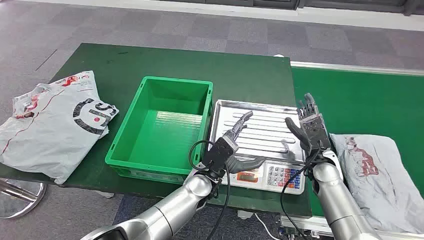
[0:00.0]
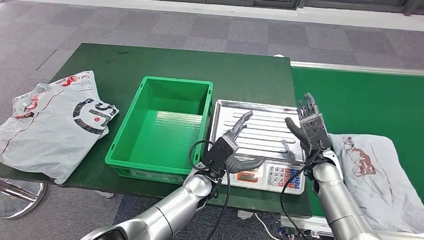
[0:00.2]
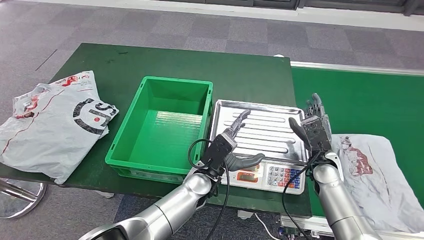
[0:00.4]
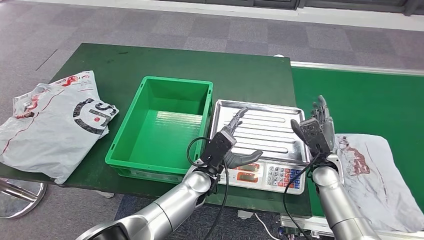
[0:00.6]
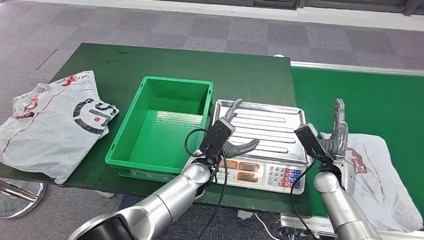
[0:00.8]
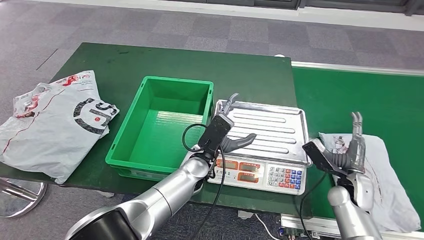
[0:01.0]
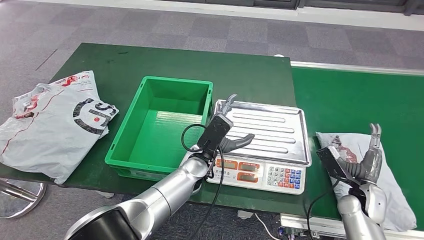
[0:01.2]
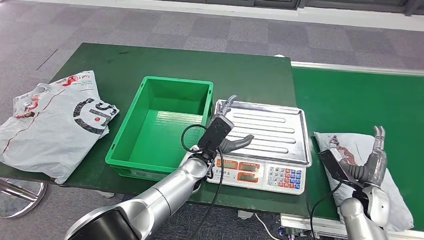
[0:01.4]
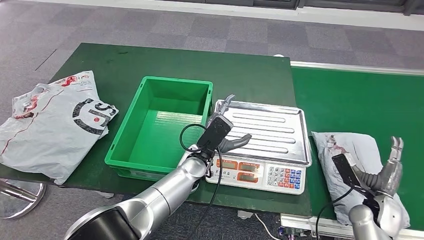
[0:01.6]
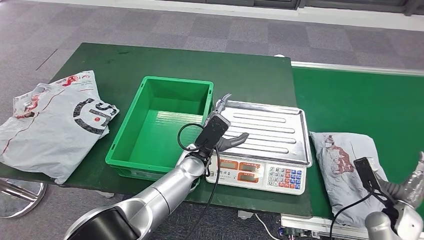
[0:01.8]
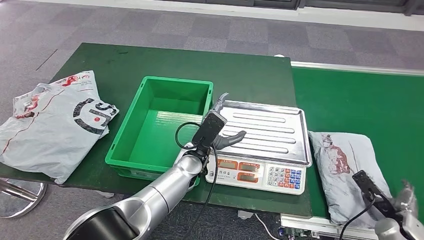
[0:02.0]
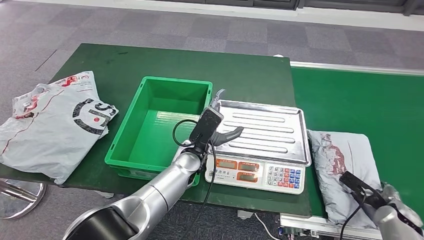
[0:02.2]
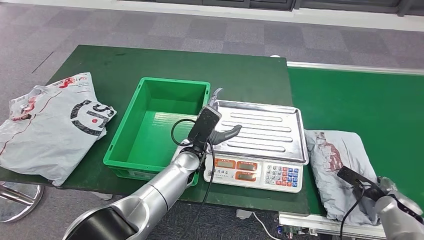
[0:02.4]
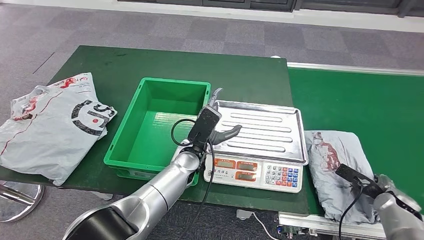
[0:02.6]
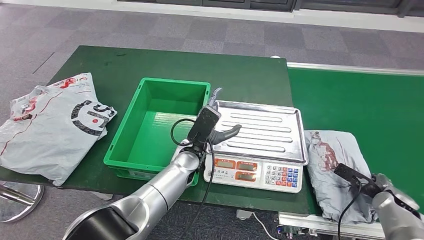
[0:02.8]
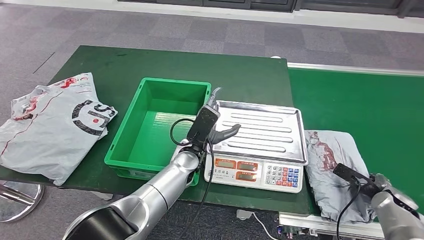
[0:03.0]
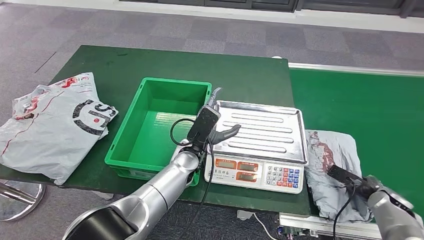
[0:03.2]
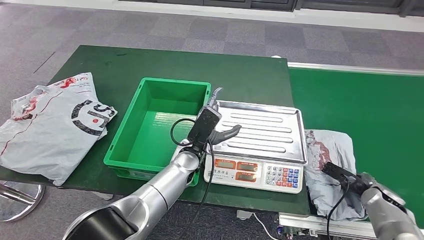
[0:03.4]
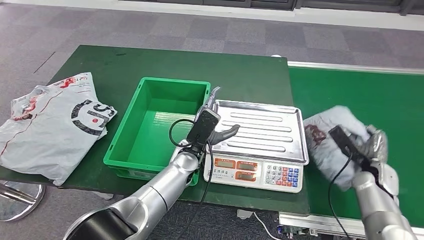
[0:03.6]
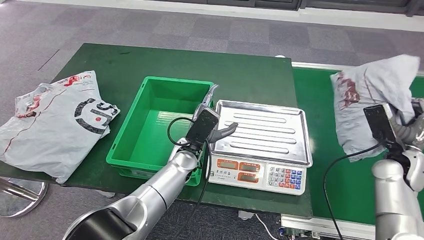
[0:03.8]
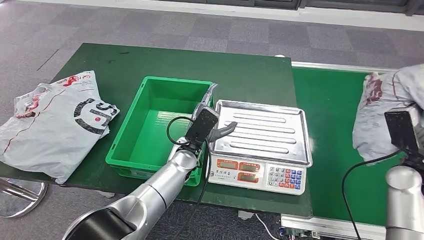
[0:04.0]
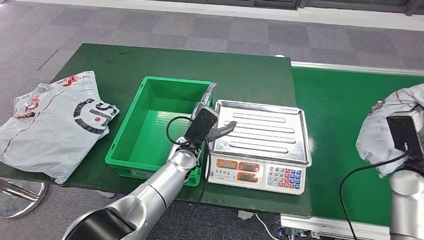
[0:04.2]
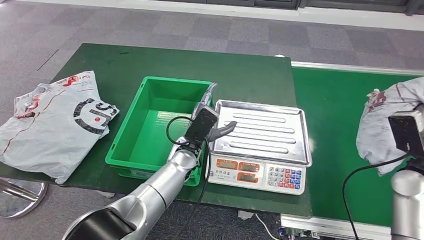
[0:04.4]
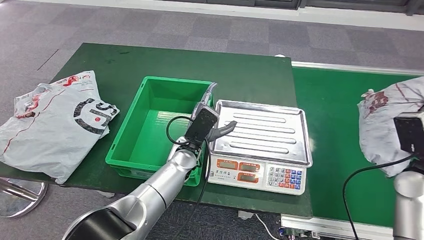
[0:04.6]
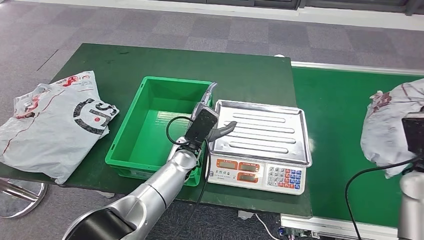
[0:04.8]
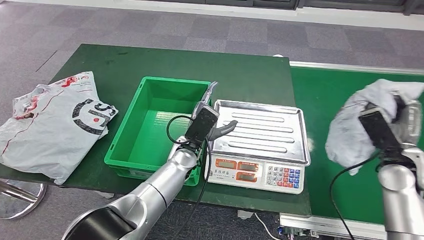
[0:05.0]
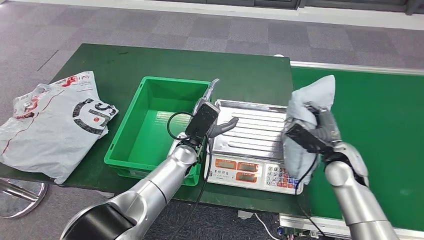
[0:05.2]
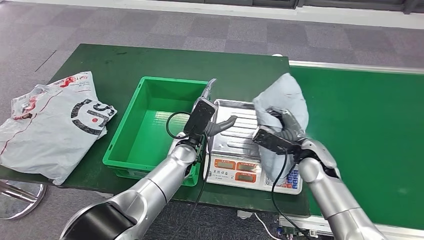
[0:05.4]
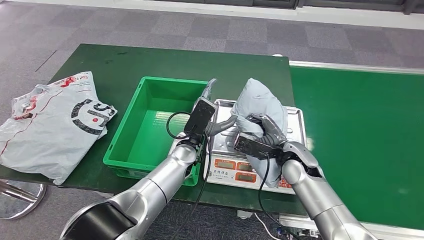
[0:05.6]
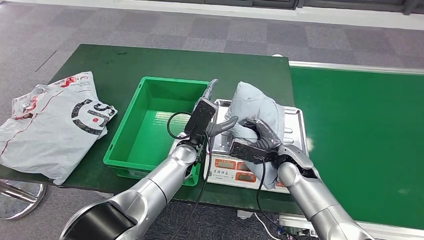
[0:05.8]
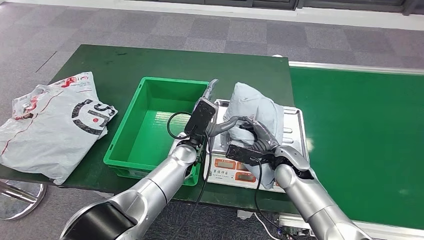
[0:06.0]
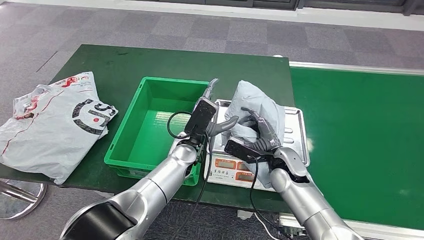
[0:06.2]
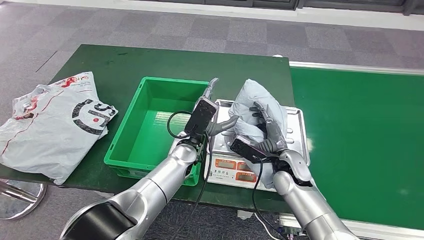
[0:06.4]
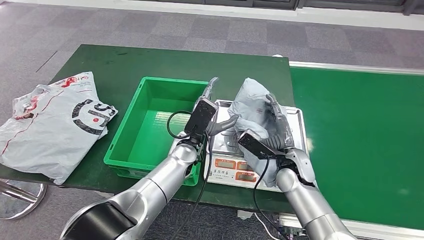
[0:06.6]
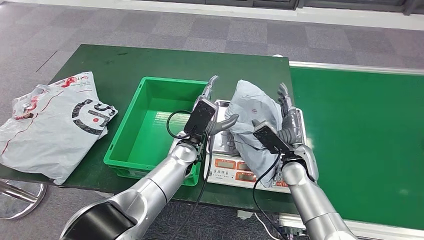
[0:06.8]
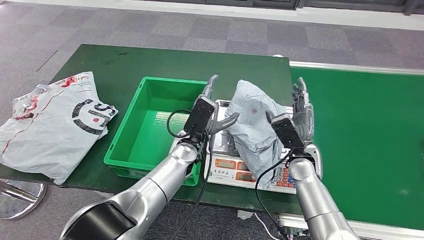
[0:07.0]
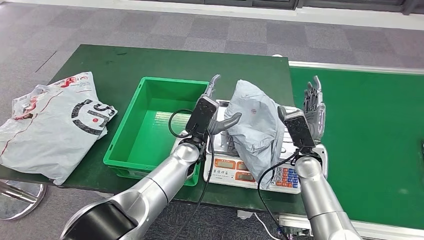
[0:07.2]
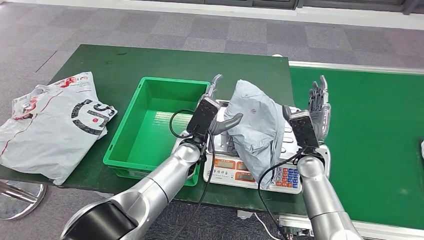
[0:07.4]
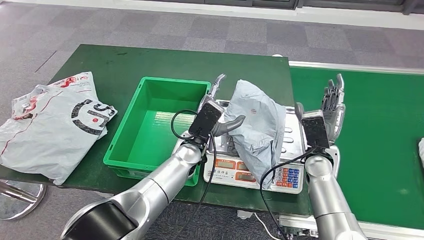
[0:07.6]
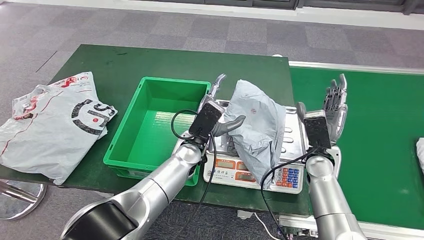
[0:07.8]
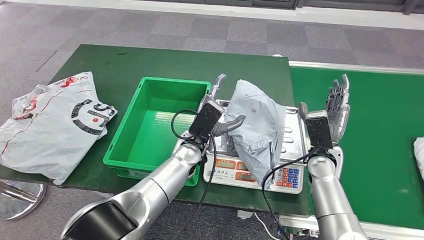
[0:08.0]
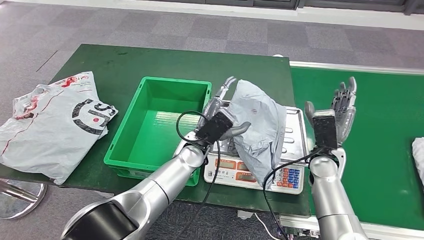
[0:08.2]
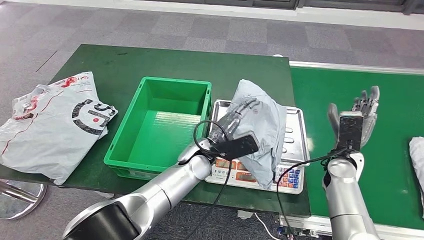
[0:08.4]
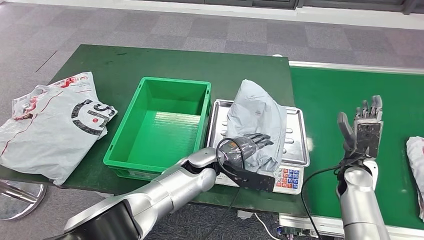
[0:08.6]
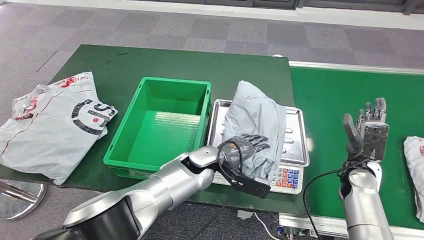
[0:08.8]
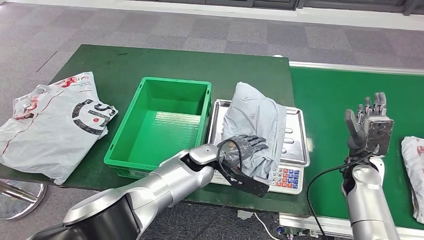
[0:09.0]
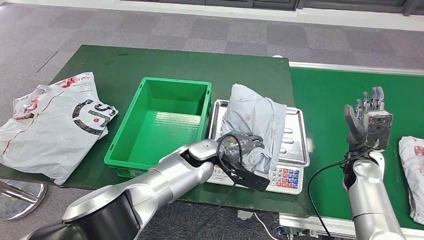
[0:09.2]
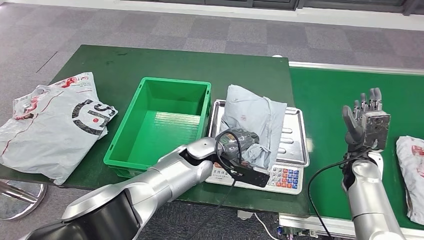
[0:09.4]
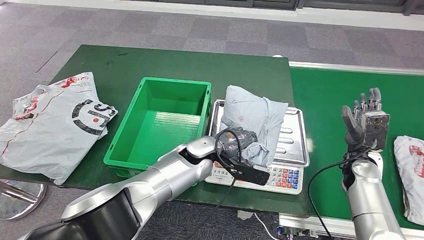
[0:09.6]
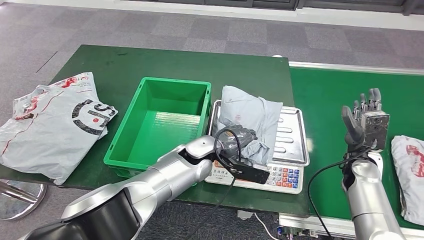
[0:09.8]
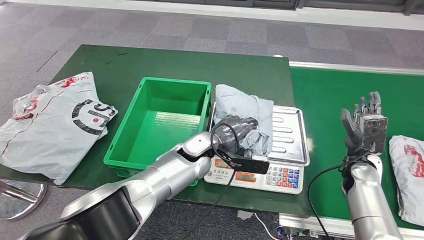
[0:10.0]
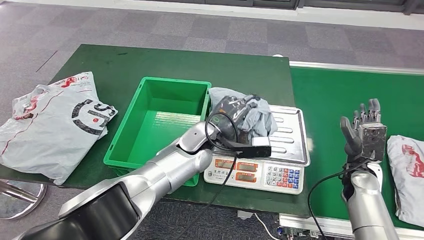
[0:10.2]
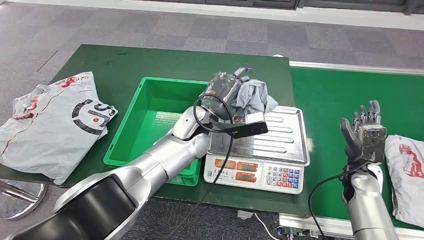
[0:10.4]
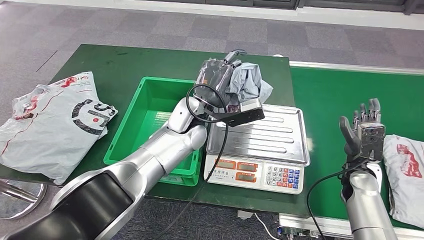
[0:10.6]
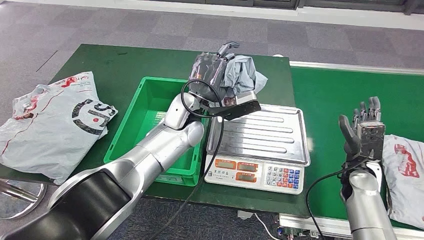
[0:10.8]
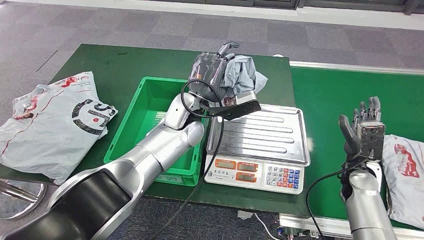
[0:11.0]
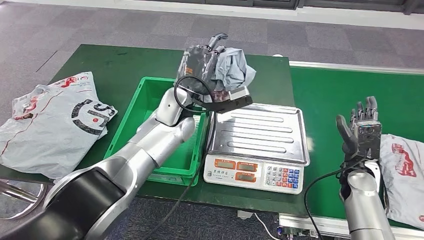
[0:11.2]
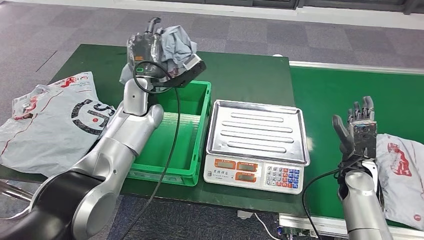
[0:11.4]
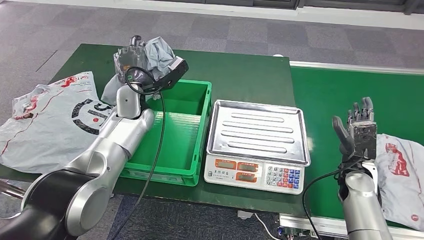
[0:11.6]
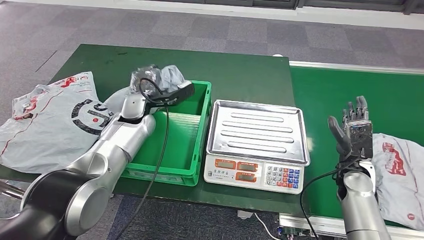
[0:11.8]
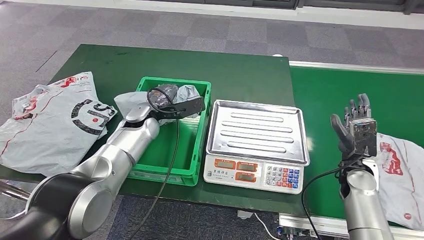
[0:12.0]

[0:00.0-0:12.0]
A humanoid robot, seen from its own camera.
Step, 0:00.0 to 0:04.2: Take the parcel off the conveyor belt.
Step, 0:04.6 to 0:07.6: Place the parcel onto the inbound machine.
Step, 0:08.0 to 0:11.2: Pick up the parcel from the inbound machine.
0:06.0 to 0:07.6: The right hand shifts some 5 cm to the right.

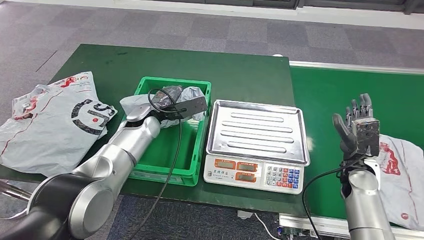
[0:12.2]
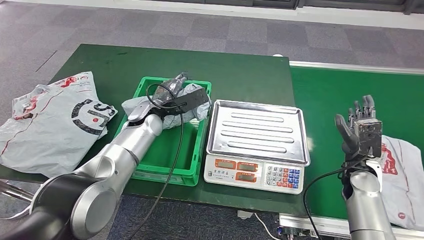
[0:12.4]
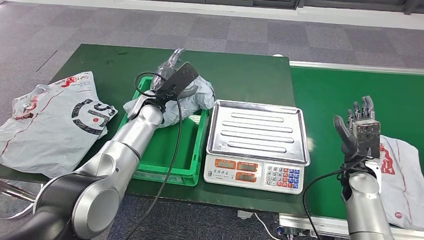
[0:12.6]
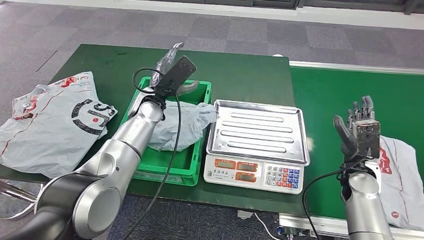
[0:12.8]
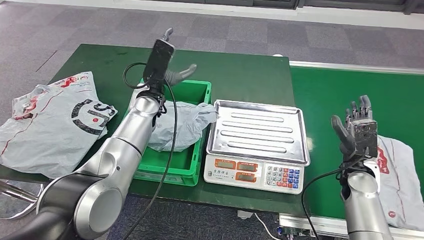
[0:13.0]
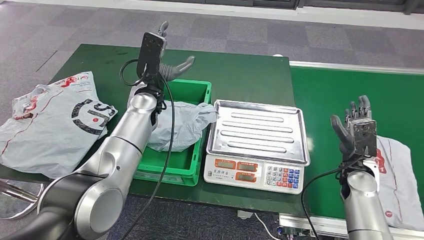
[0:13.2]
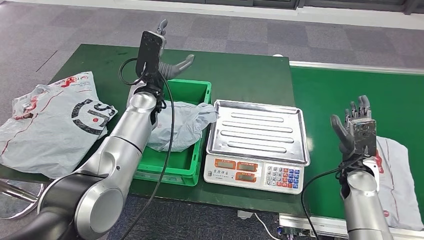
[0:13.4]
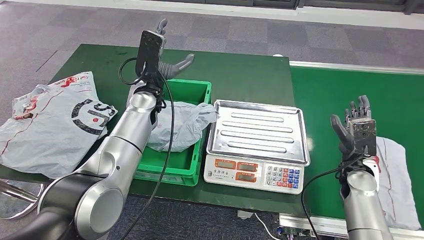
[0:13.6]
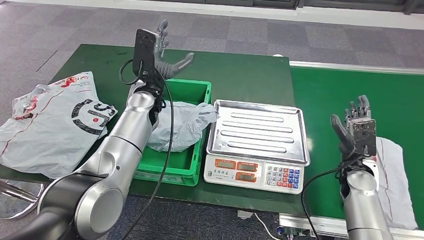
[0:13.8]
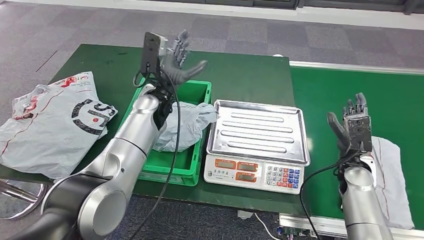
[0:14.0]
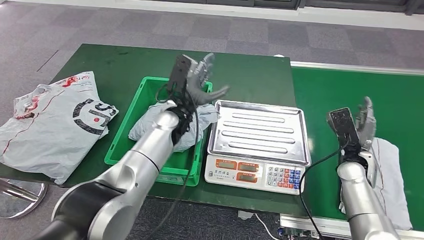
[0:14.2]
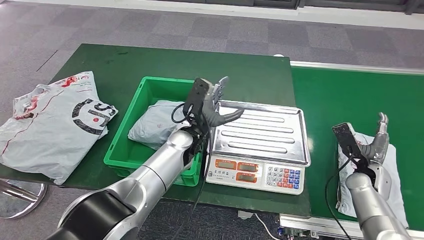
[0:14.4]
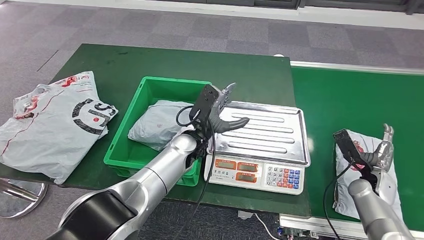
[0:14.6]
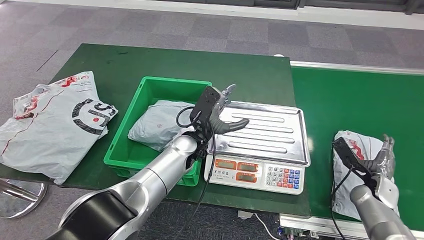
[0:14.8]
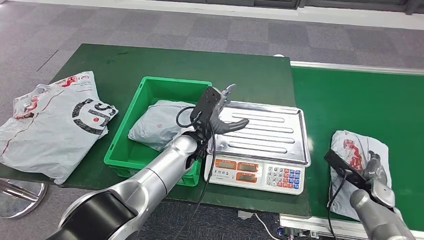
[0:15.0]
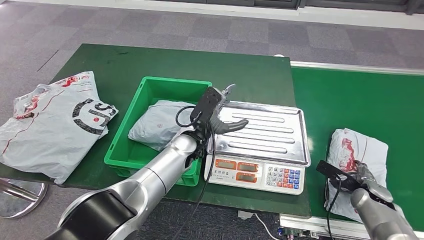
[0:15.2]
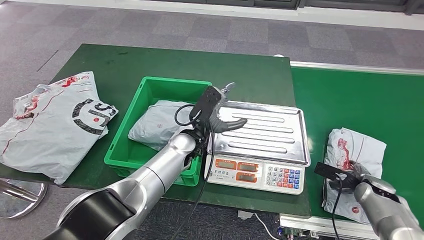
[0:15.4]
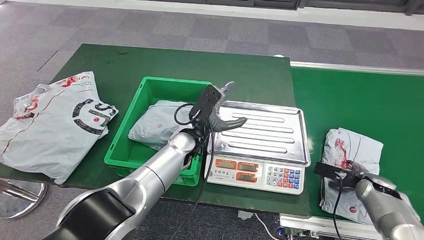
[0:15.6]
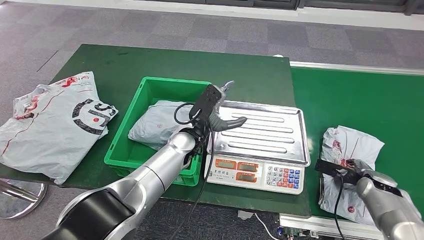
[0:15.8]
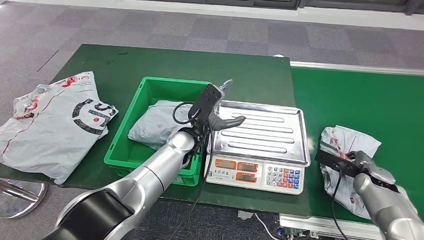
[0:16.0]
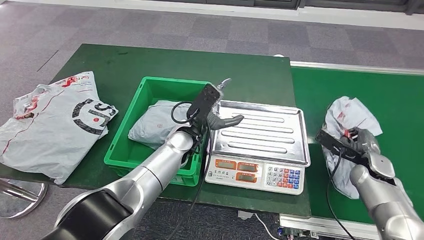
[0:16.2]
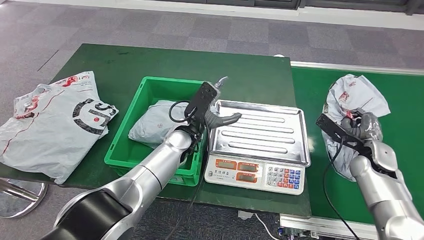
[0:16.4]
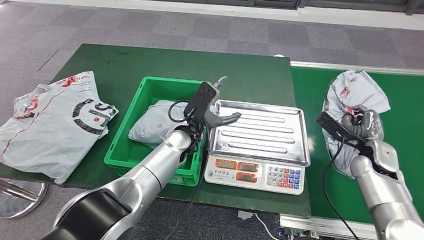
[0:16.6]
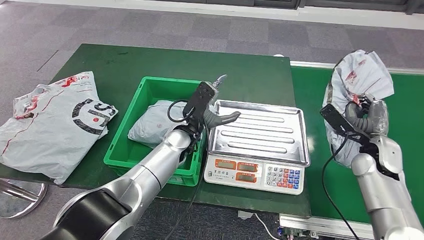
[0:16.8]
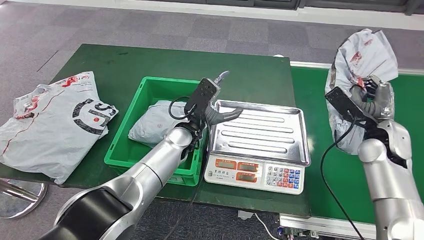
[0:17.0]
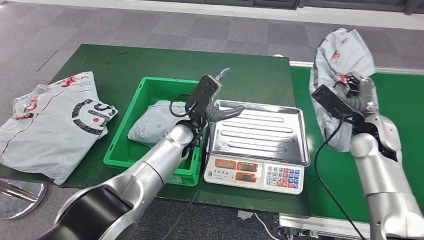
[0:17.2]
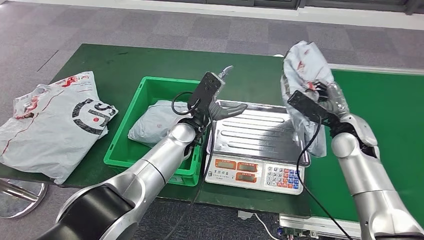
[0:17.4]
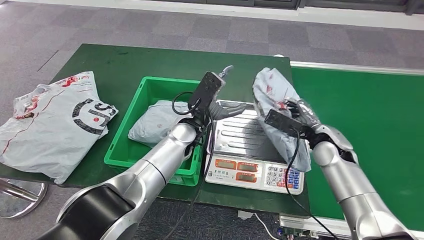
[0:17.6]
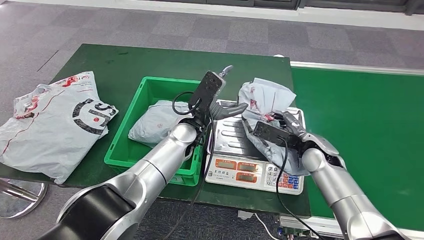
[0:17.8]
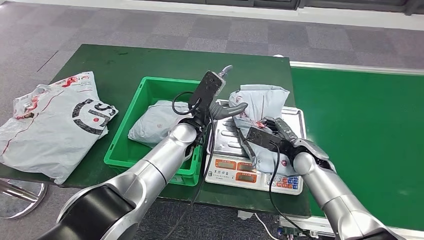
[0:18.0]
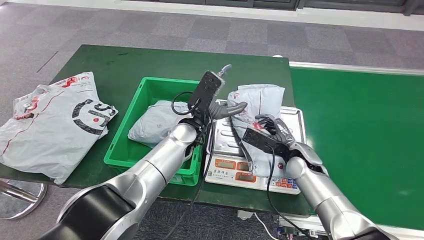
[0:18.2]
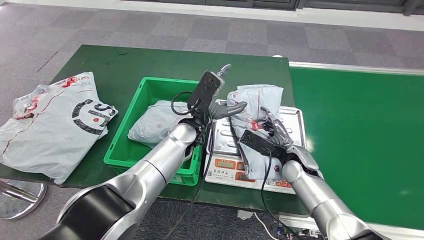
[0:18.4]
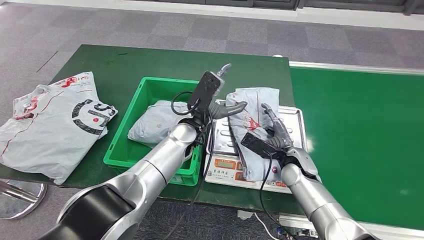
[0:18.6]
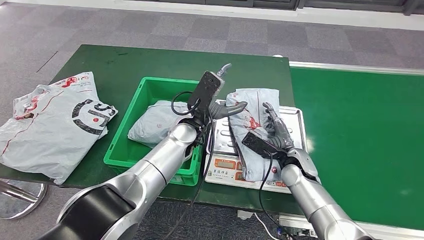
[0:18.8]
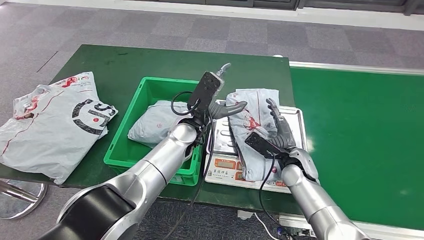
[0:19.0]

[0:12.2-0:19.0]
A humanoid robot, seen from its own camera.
Step, 0:12.2 to 0:13.8: Put the parcel inside the courier box.
Step, 0:14.0 to 0:17.0: Pick up the parcel from the conveyor belt.
0:12.2 to 0:13.6: The left hand travels upward by some 5 cm.
0:15.0 to 0:16.2: The right hand travels upward and forward by about 10 cm.
0:17.6 to 0:19.0: The right hand heads downward and to the left, covering approximately 10 cm.
